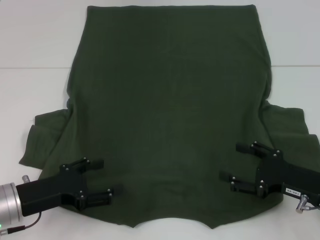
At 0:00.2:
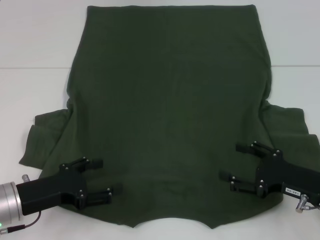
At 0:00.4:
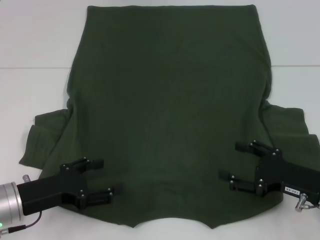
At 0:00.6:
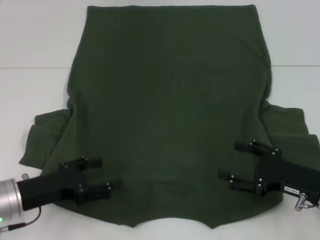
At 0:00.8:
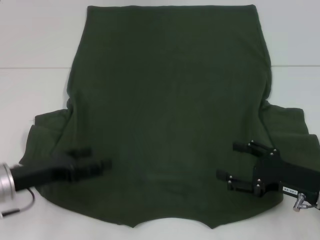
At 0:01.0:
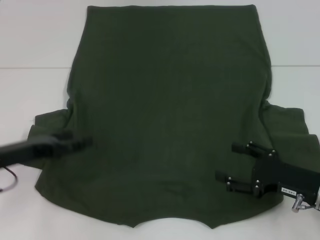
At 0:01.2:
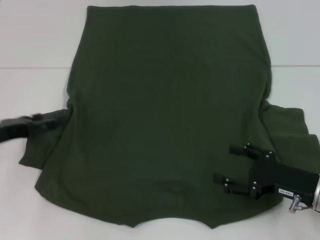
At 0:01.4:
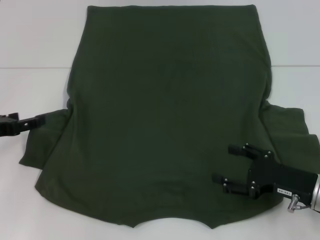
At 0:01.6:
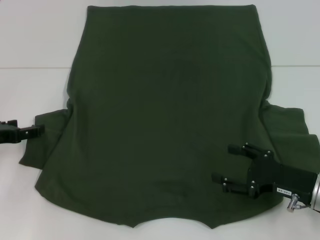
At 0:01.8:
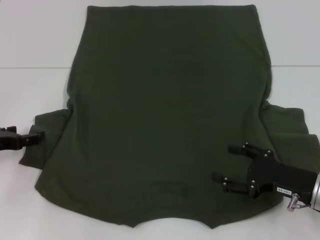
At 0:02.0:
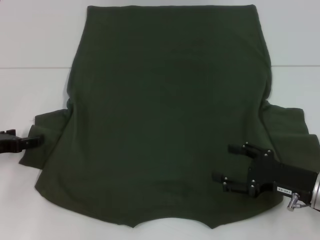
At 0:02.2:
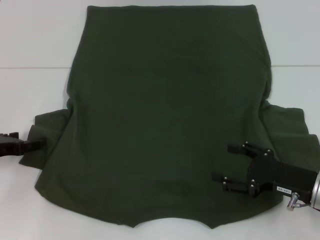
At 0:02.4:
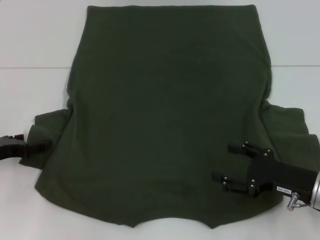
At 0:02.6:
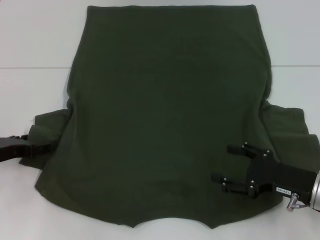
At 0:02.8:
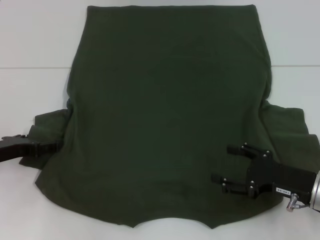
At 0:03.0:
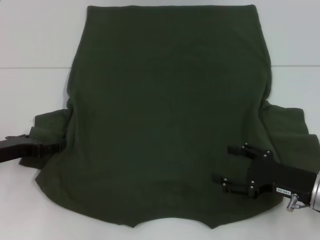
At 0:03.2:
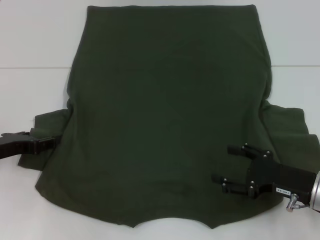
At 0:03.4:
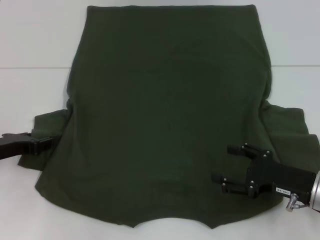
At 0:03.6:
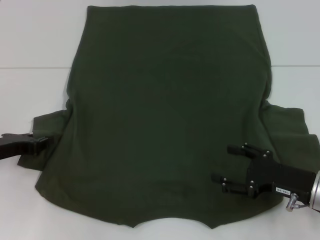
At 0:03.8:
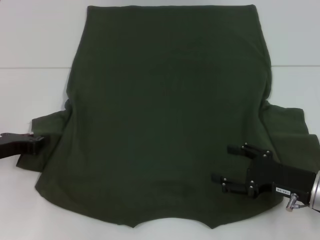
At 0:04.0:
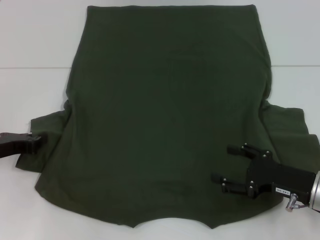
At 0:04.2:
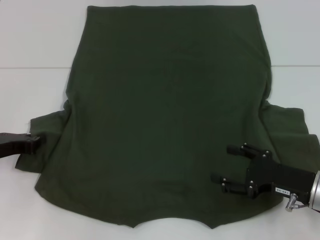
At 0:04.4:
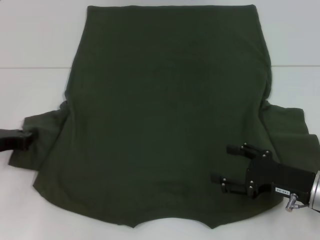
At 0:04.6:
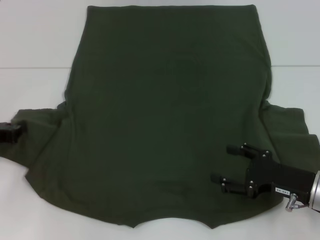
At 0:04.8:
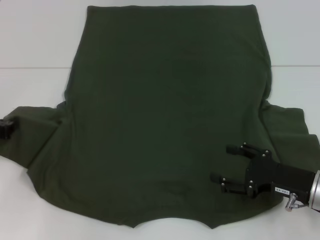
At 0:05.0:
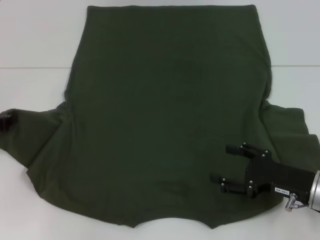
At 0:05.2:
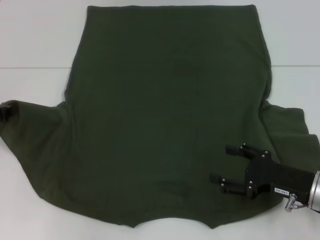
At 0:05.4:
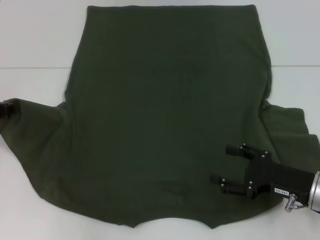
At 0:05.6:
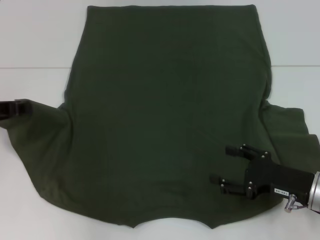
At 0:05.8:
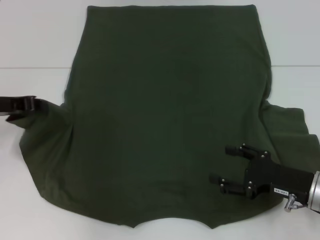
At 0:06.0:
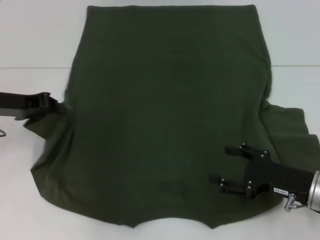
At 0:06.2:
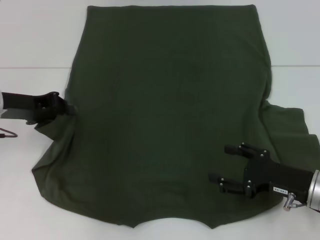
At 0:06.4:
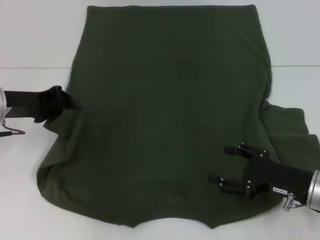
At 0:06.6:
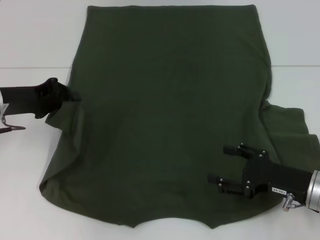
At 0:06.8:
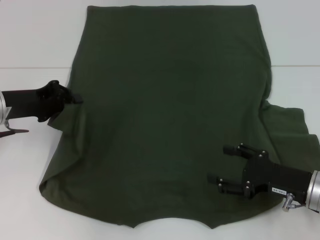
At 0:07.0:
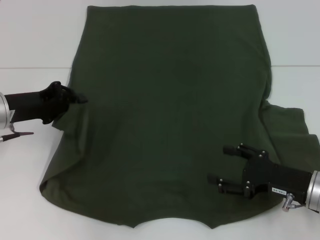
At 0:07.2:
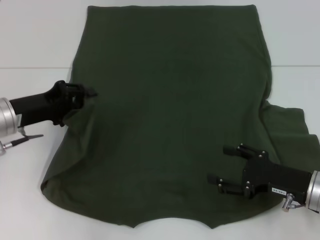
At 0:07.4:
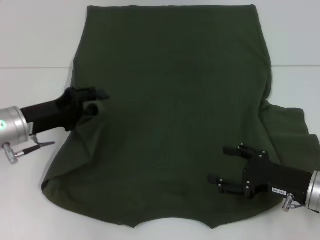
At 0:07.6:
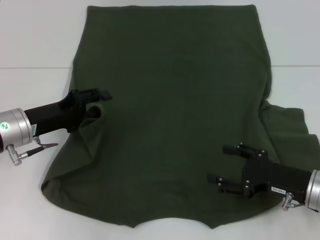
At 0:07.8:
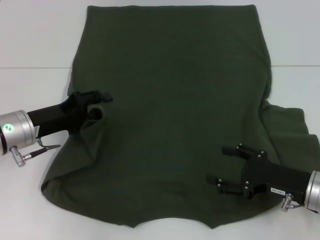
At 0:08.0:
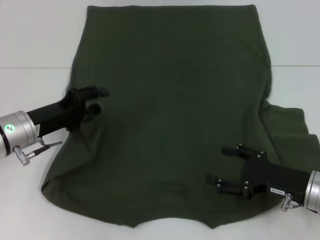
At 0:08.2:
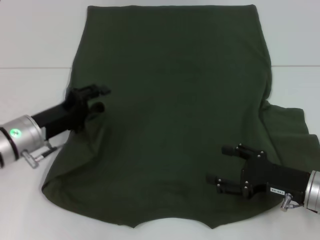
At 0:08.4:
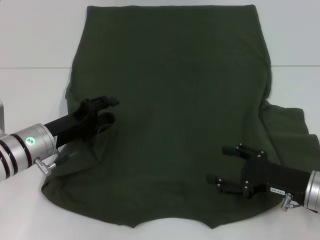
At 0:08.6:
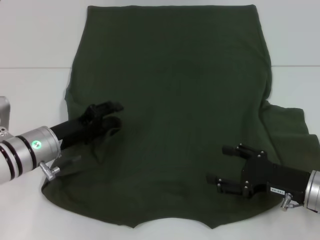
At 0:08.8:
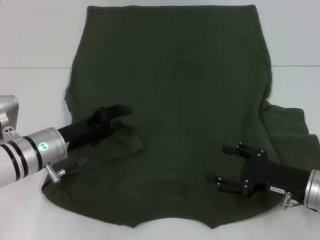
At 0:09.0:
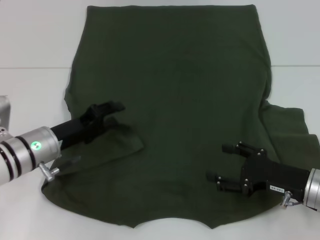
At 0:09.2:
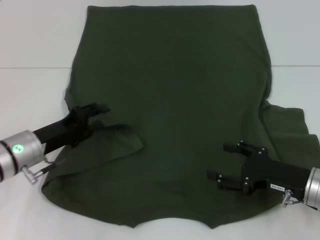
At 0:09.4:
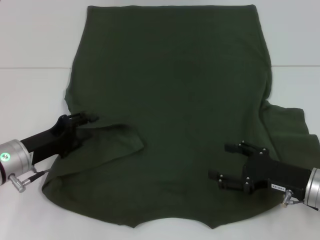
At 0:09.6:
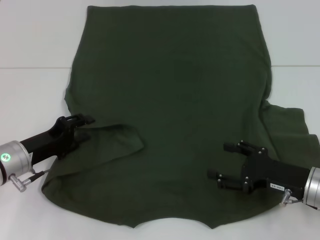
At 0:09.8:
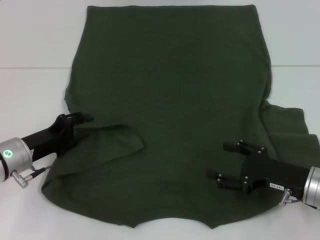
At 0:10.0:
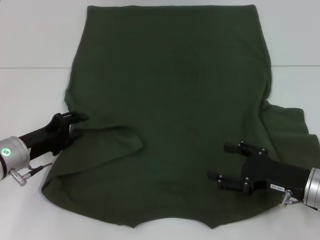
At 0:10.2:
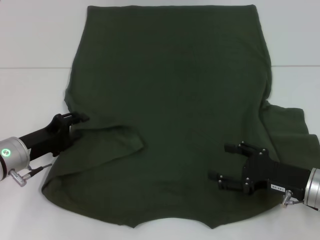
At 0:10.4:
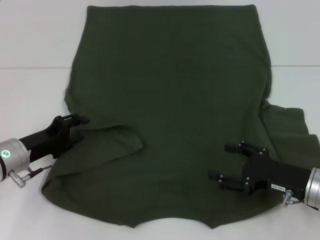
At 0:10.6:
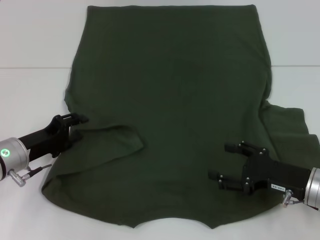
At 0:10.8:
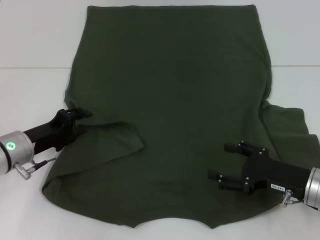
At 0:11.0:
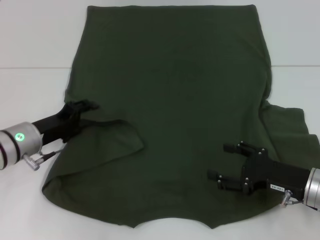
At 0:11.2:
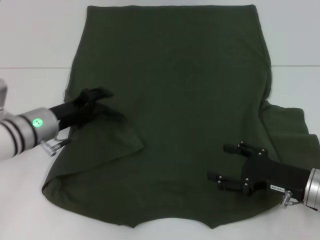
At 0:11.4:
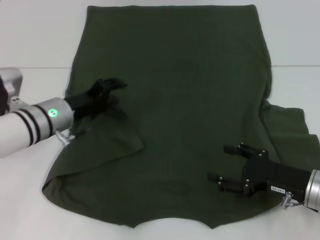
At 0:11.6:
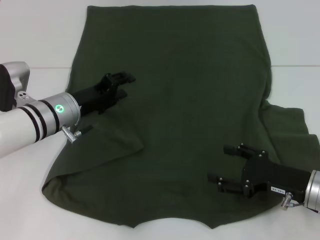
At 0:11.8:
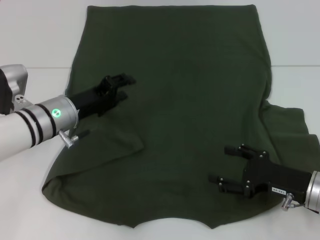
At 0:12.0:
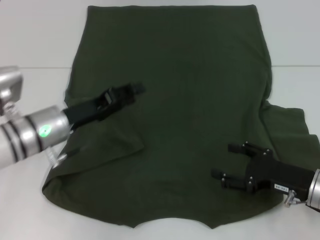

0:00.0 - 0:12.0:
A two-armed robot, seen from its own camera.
0:00.0 - 0:01.6: The left gripper travels to the left and forward by roughly 10 cm.
0:01.6 - 0:03.0: The grippers make only small movements.
0:03.0 - 0:04.4: The left gripper closes.
0:04.4 - 0:06.0: The left gripper moves upward, approximately 10 cm.
0:06.0 - 0:07.6: The left gripper shifts some 5 cm downward, and opens up.
0:07.6 - 0:09.0: The left gripper moves about 5 cm.
0:09.0 - 0:10.4: The left gripper moves some 5 cm.
0:10.4 - 0:12.0: The left gripper shifts approximately 5 cm to the right.

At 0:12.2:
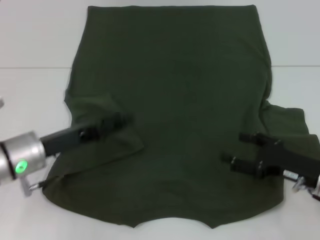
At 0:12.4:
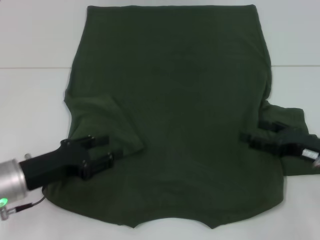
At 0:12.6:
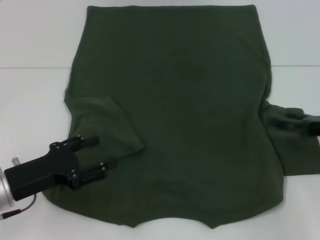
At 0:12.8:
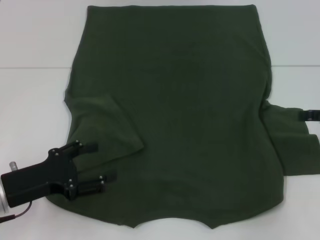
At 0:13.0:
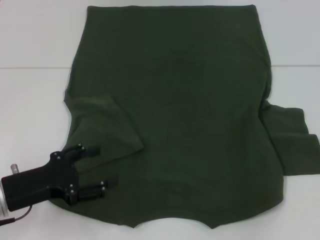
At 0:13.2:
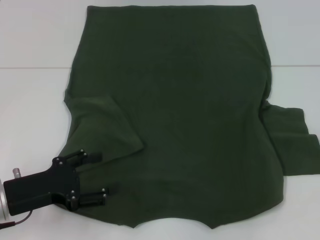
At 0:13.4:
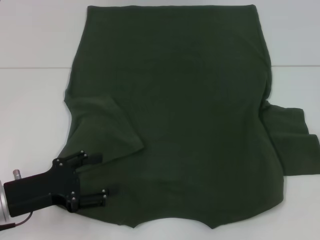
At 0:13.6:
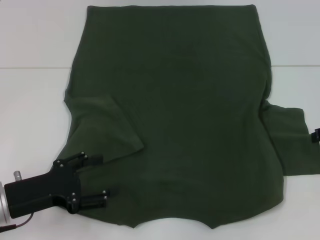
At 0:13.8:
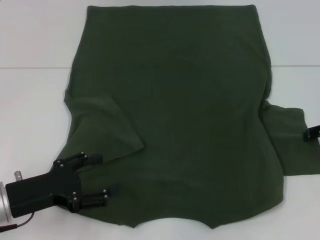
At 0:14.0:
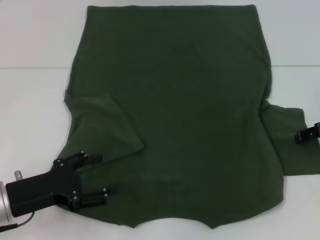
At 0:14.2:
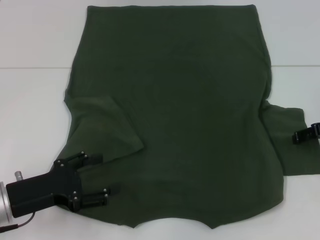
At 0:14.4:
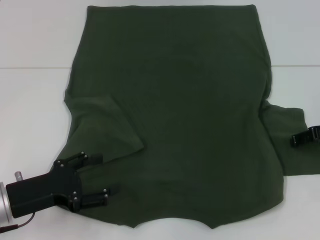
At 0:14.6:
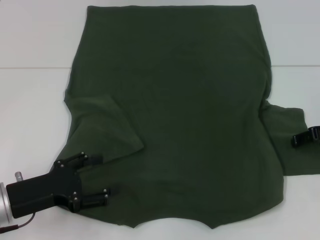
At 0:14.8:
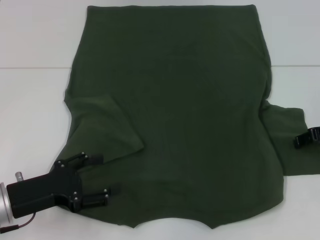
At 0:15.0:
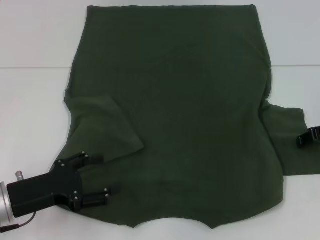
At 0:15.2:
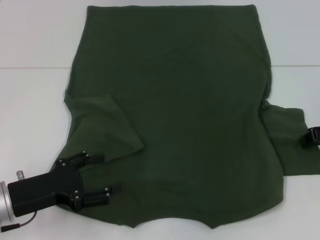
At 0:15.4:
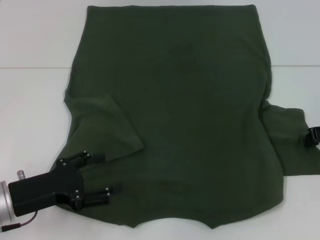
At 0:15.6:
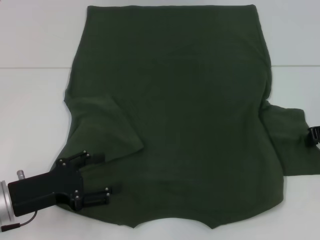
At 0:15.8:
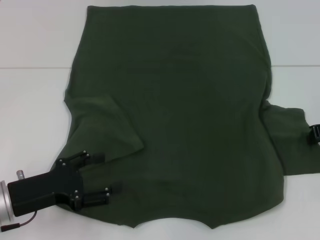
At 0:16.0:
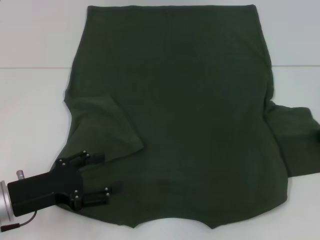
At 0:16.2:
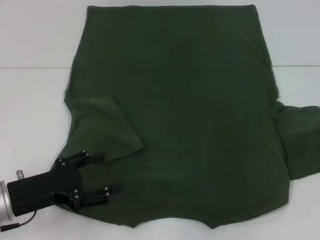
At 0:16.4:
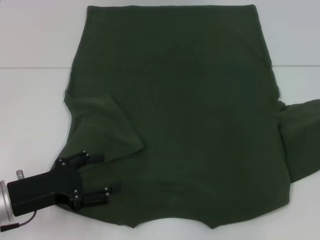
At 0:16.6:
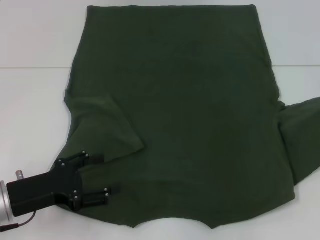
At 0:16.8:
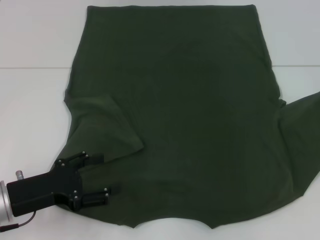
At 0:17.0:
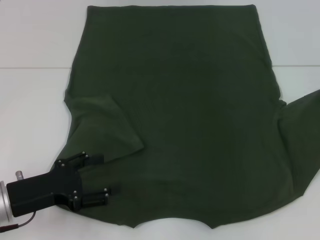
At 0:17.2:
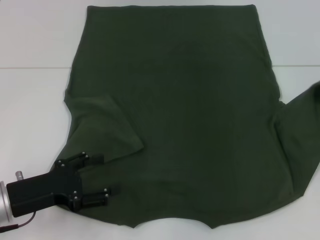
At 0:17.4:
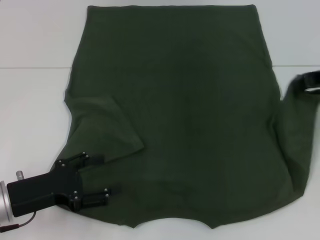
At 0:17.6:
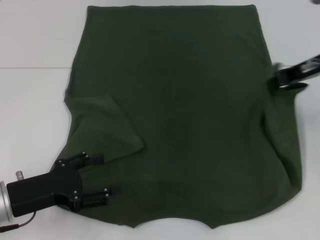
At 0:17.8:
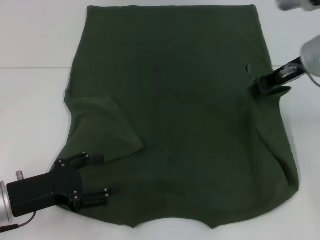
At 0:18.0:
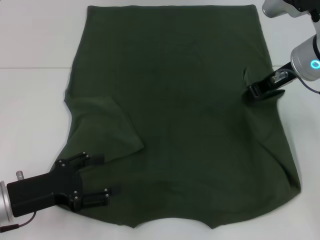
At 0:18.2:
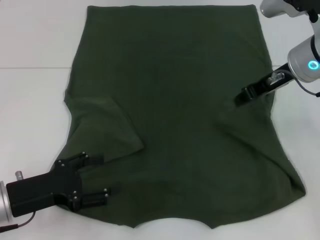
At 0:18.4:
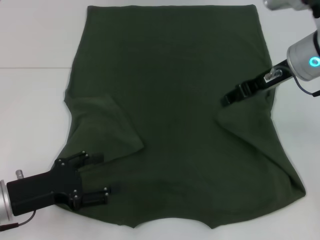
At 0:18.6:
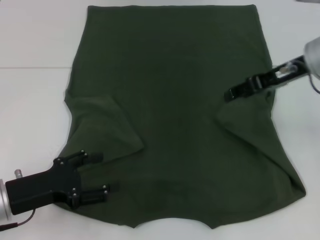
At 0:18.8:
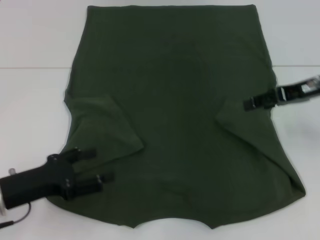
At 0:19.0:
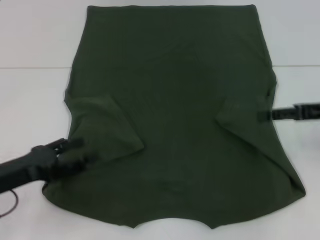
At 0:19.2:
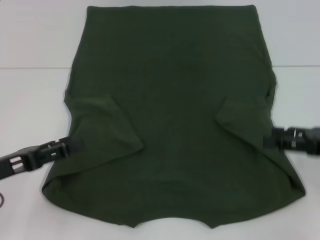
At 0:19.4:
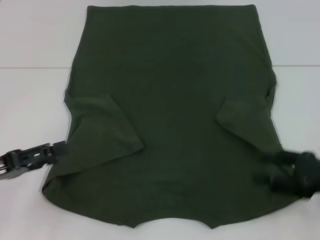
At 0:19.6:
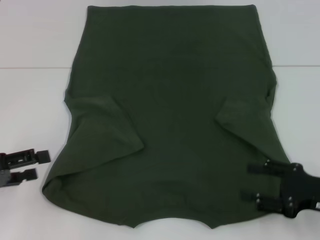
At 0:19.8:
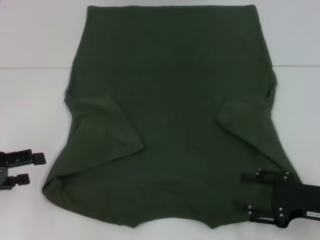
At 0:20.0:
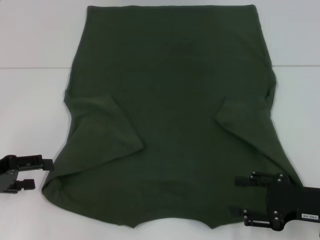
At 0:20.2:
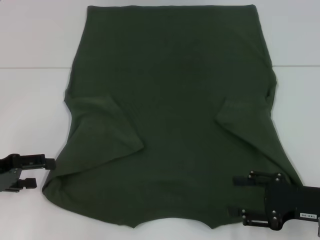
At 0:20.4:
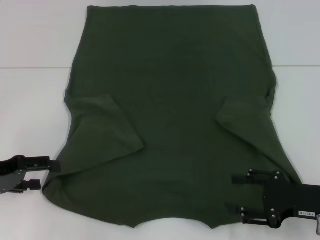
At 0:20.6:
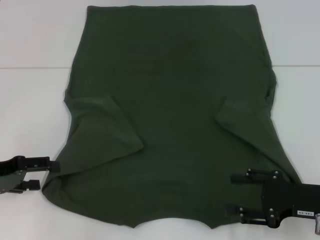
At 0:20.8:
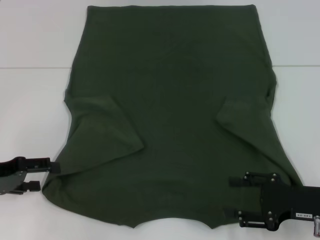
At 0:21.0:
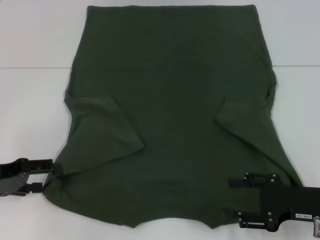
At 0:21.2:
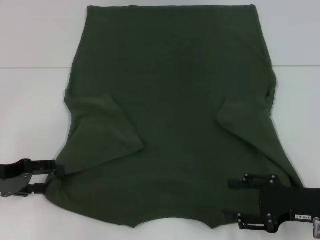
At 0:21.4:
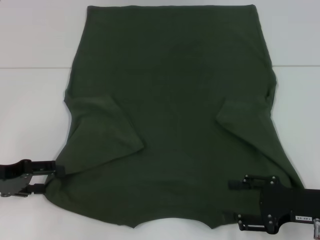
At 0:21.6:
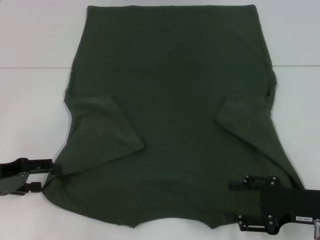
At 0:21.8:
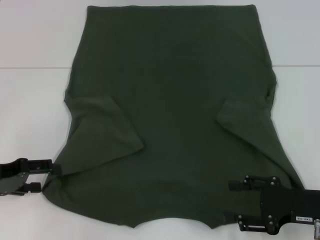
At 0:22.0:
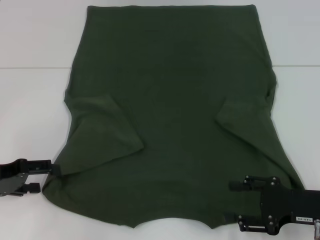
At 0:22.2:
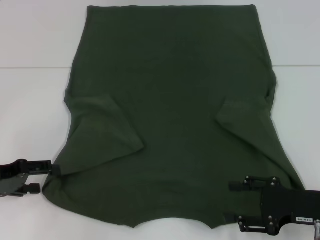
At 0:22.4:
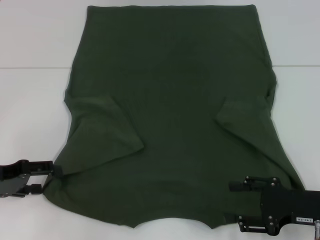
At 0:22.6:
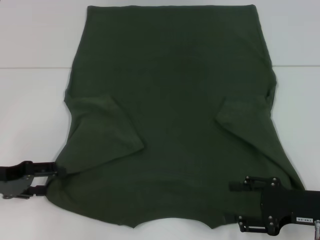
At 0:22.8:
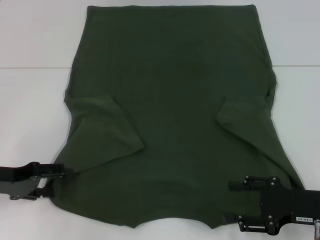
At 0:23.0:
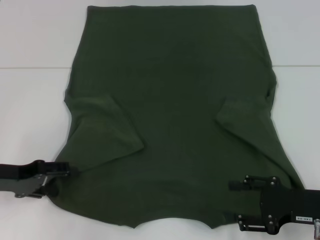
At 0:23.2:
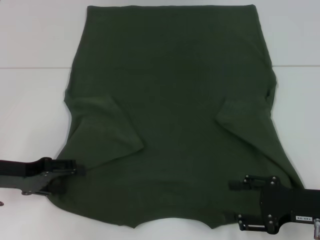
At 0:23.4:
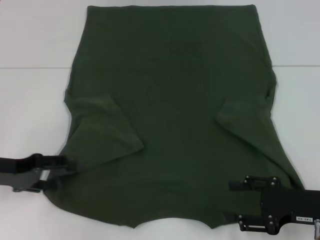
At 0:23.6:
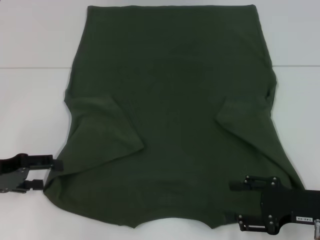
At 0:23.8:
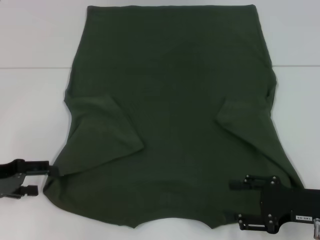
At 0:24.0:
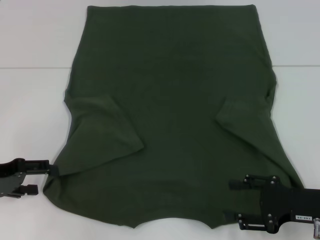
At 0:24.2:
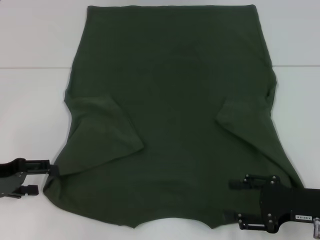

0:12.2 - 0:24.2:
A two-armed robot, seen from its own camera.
Step, 0:12.6 - 0:19.4: Fold the bottom right sleeve with your right hand.
0:12.2 - 0:13.8: The right gripper heads upward, forward and to the right, covering approximately 15 cm. Meanwhile the left gripper heads backward, covering about 5 cm, and opens.
0:15.2 - 0:16.6: The right gripper changes place by some 5 cm, and closes up.
0:16.6 - 0:18.2: The right gripper heads to the left, covering some 15 cm.
0:18.2 - 0:19.8: The left gripper moves to the left, roughly 10 cm. Meanwhile the right gripper heads backward, downward and to the right, covering roughly 25 cm, and opens up.
0:19.8 - 0:21.2: The grippers stay close to where they were, moving slightly.
0:21.2 - 0:22.6: Both grippers stay about where they are.
0:22.6 - 0:24.2: The grippers make only small movements.
